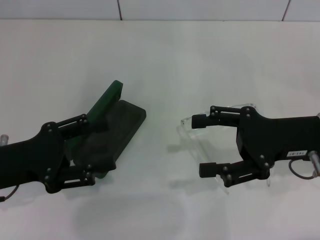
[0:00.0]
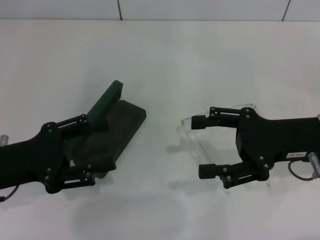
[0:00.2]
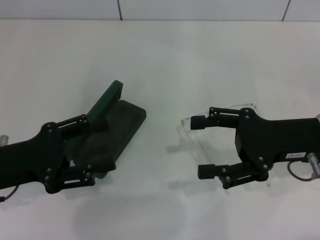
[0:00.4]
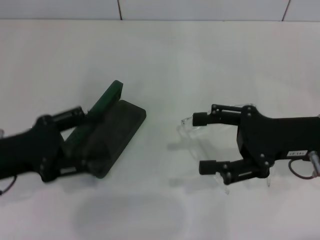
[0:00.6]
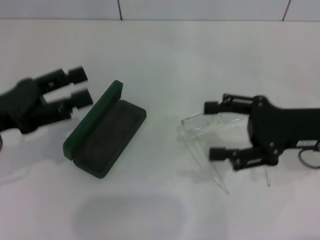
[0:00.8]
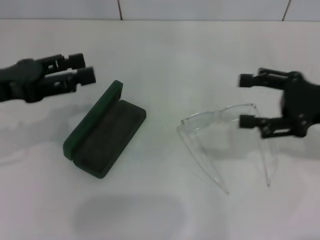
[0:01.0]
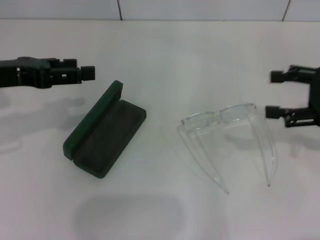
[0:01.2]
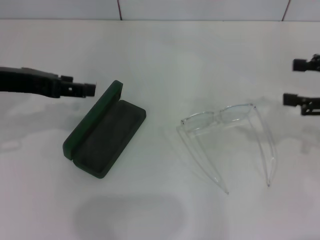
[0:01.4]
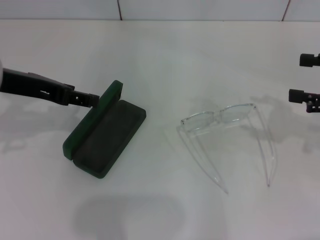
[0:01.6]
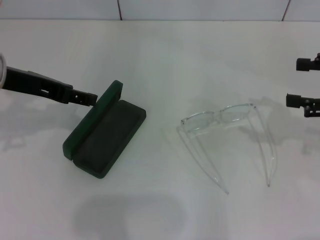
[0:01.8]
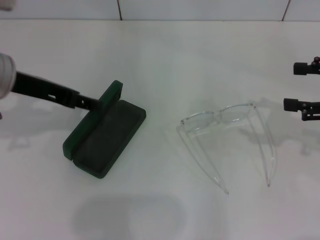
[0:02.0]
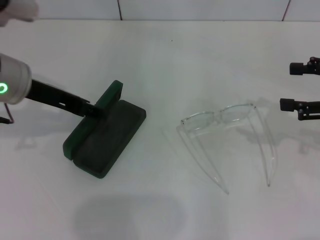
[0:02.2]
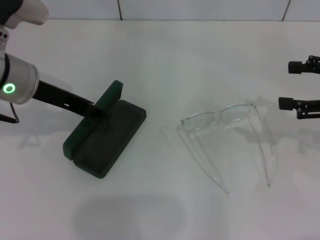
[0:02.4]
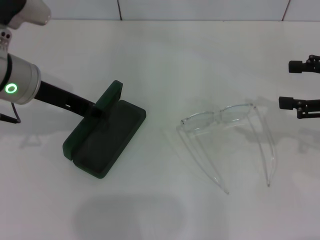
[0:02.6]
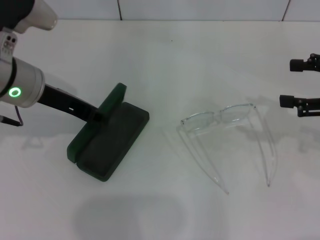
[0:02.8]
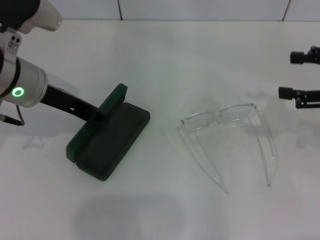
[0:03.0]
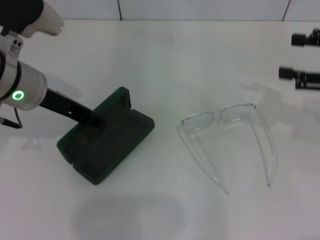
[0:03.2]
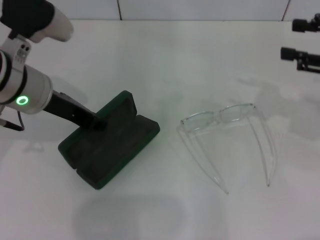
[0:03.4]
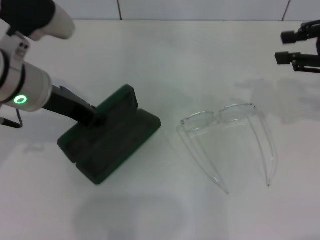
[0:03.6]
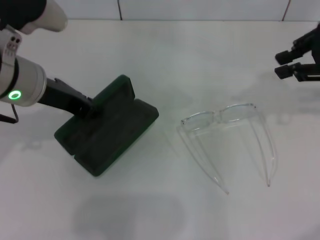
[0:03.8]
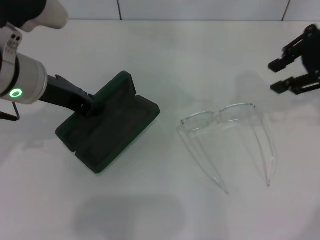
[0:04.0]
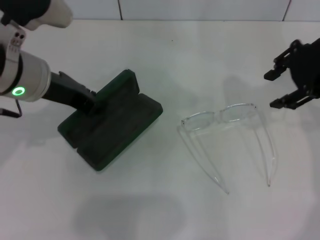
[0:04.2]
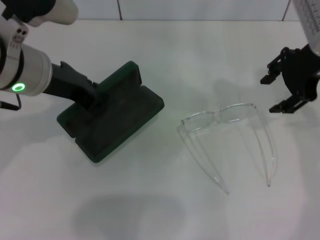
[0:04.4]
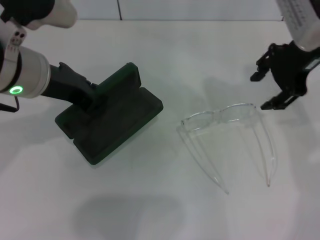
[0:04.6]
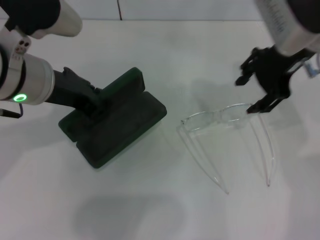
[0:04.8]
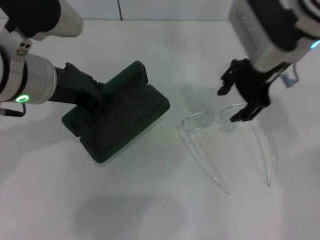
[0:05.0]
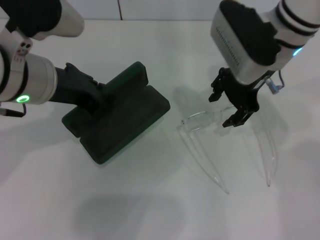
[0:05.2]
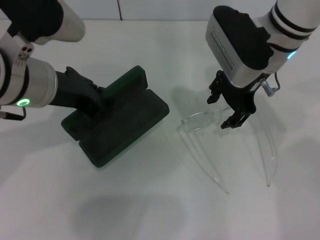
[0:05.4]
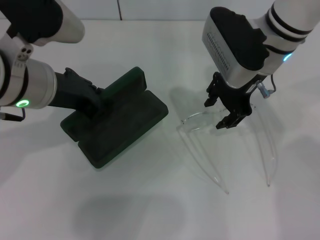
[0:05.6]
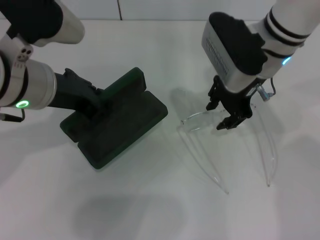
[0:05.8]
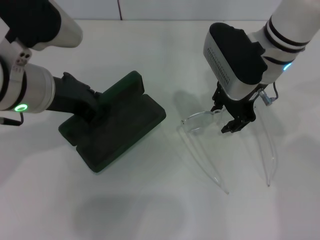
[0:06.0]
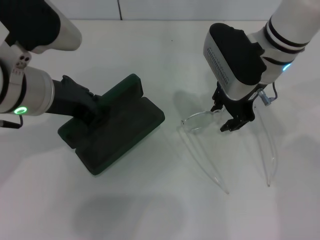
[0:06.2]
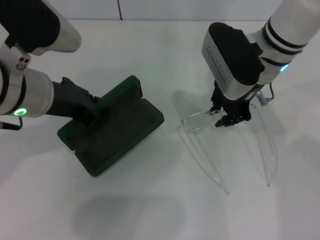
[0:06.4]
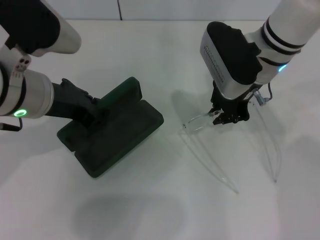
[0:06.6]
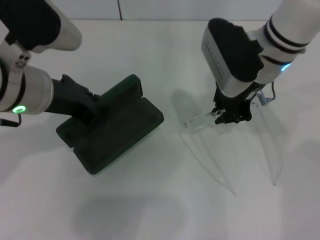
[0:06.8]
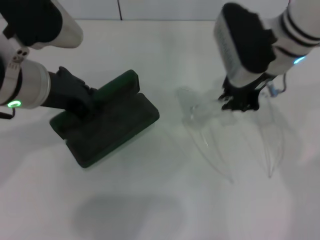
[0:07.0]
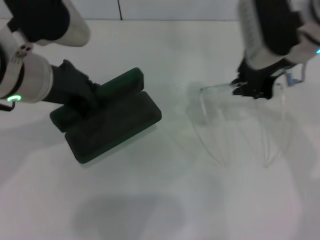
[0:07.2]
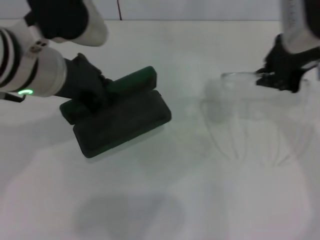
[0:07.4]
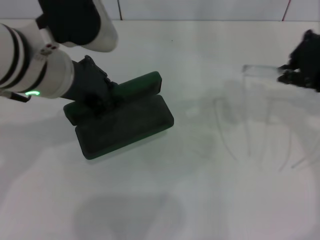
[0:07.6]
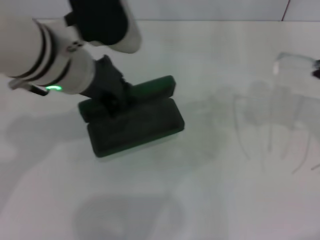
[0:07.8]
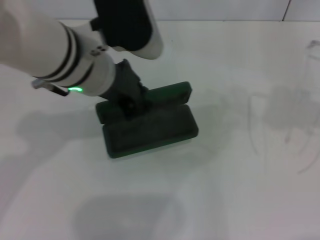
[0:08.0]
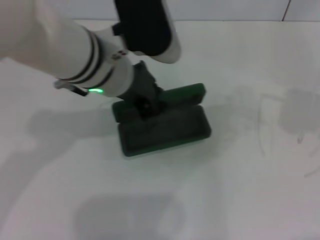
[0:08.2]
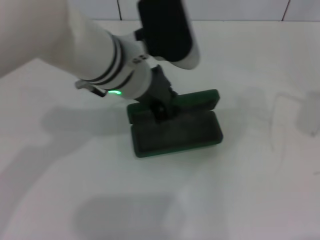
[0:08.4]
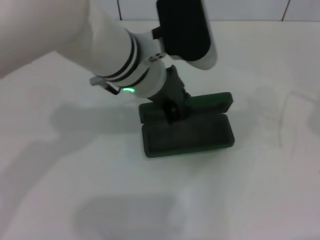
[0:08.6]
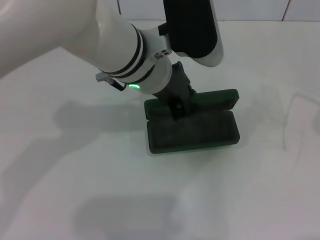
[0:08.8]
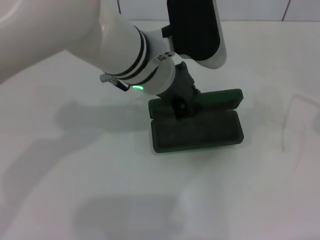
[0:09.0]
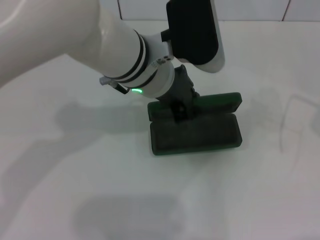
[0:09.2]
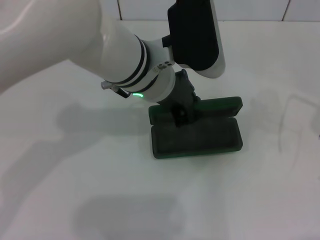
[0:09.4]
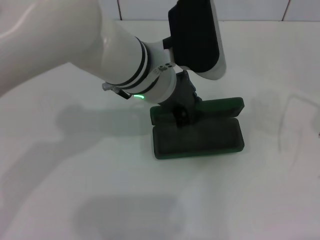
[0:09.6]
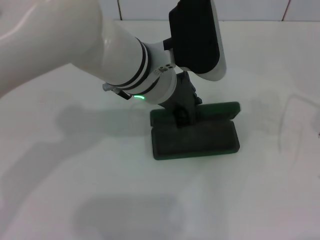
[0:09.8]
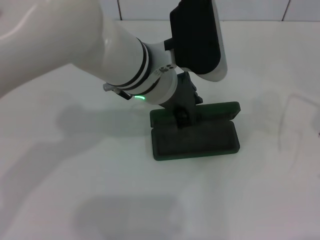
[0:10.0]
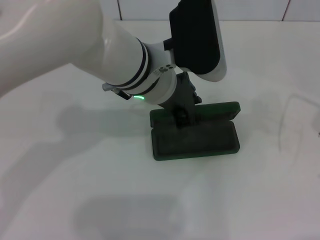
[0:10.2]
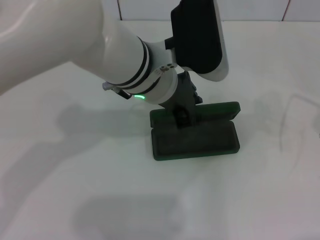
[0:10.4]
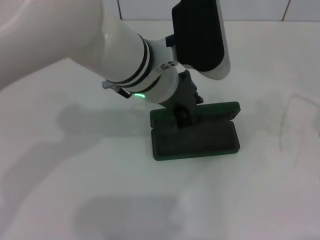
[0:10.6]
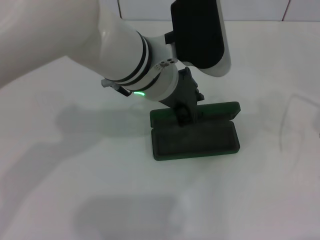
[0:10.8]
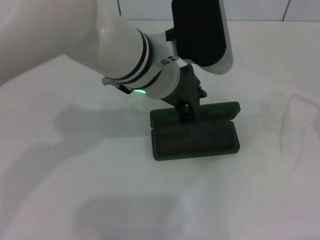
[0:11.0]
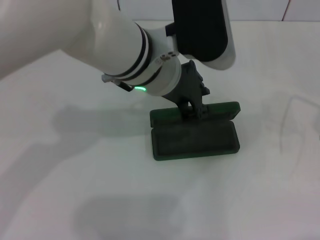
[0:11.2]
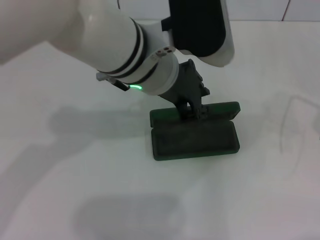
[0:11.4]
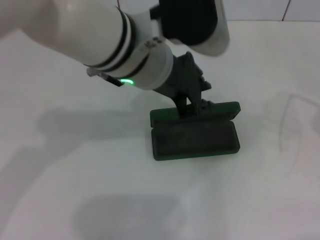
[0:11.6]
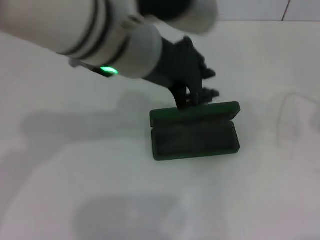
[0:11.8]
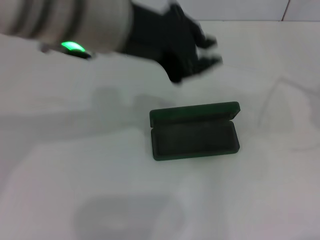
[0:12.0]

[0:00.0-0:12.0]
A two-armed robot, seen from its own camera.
Step, 0:00.0 to 0:03.2: Grab the glasses case with your left hand.
Step, 0:03.4 to 0:06.6: Grab the eyeglass frame with your right hand.
Step, 0:06.8 to 0:10.4: Place the glasses case in the center of the table with your left hand.
0:00.0 to 0:01.6: The left gripper goes roughly 15 cm upward and forward. Meanwhile the right gripper is displaced to the right by approximately 10 cm.
0:01.6 to 0:03.0: The left gripper ends up some 5 cm from where it was, and closes up.
0:03.0 to 0:04.4: The left gripper moves roughly 5 cm. The right gripper shifts about 15 cm to the left, forward and upward, and closes, then opens again.
0:04.4 to 0:06.0: The right gripper heads to the left and downward, covering roughly 10 cm.
0:06.0 to 0:07.6: The right gripper goes roughly 15 cm to the right, upward and backward, and closes up.
0:07.6 to 0:09.0: The left gripper is displaced to the right by approximately 10 cm; the right gripper moves to the right and backward, approximately 20 cm.
0:09.0 to 0:10.4: Both grippers stay about where they are.
0:10.4 to 0:12.0: The left gripper goes approximately 15 cm upward and to the left.

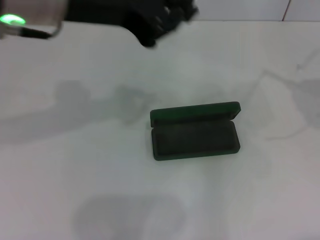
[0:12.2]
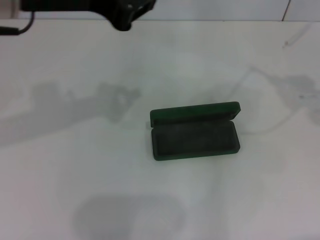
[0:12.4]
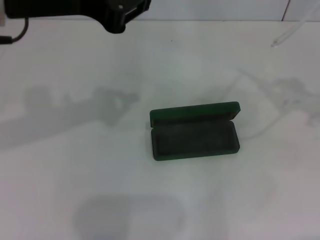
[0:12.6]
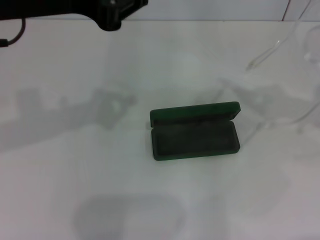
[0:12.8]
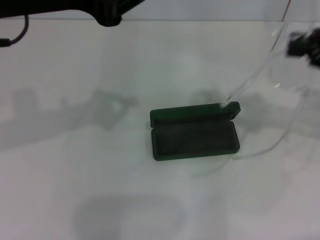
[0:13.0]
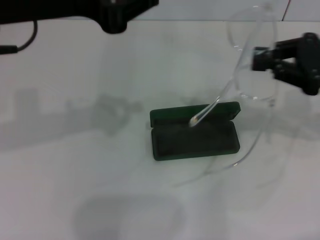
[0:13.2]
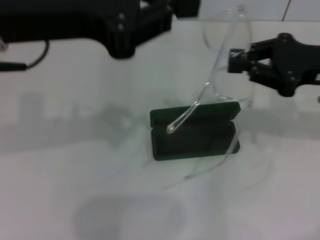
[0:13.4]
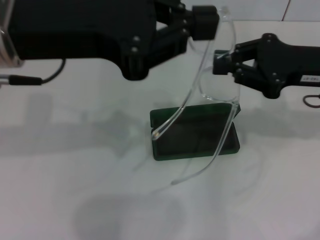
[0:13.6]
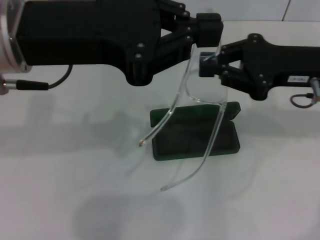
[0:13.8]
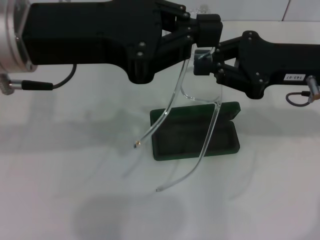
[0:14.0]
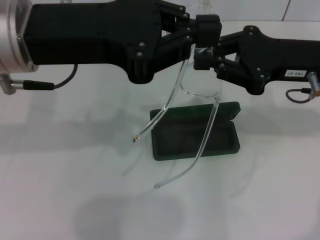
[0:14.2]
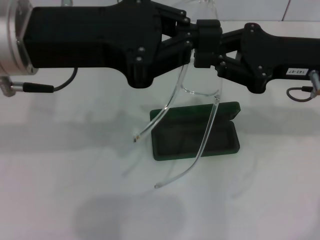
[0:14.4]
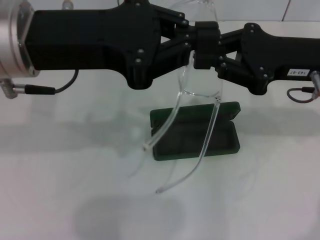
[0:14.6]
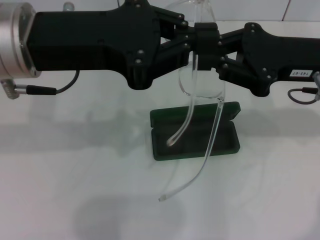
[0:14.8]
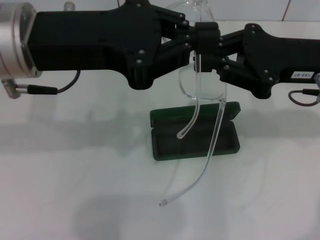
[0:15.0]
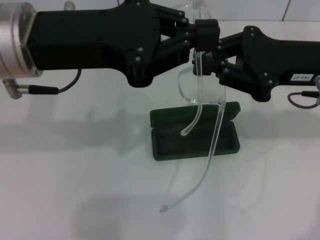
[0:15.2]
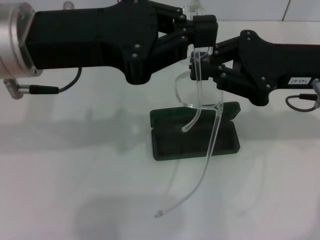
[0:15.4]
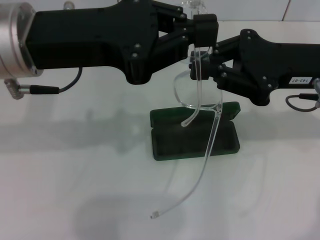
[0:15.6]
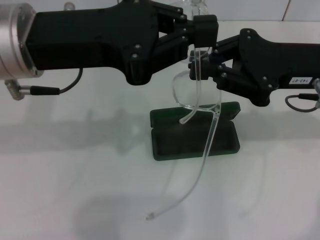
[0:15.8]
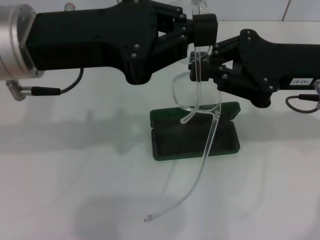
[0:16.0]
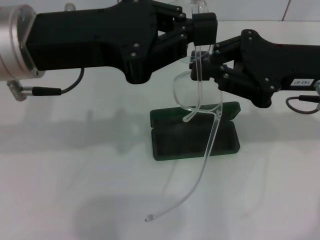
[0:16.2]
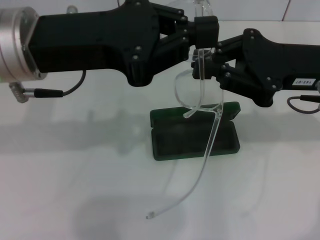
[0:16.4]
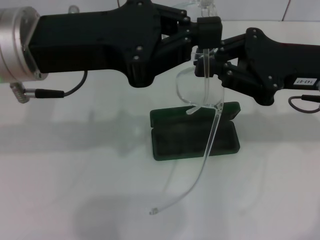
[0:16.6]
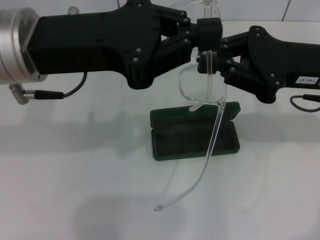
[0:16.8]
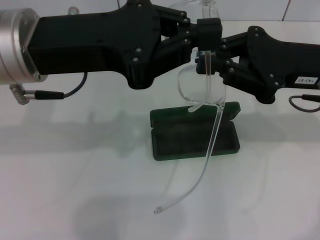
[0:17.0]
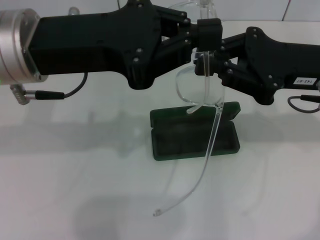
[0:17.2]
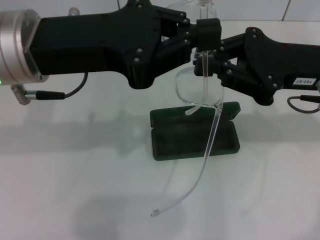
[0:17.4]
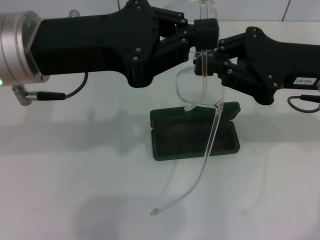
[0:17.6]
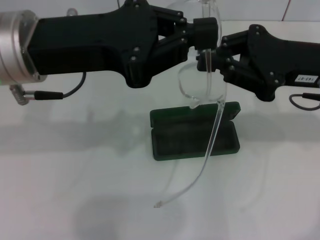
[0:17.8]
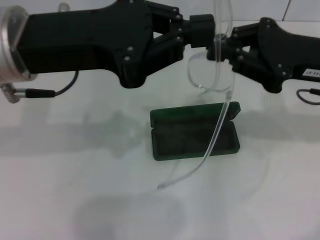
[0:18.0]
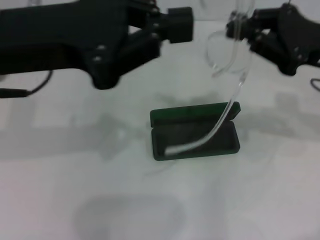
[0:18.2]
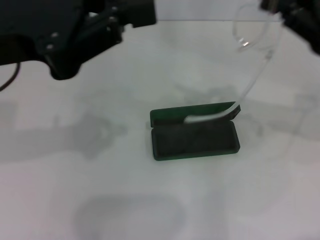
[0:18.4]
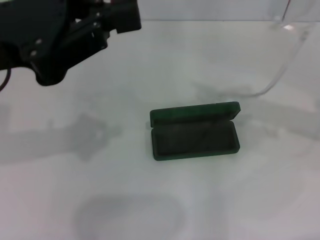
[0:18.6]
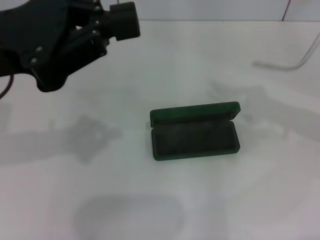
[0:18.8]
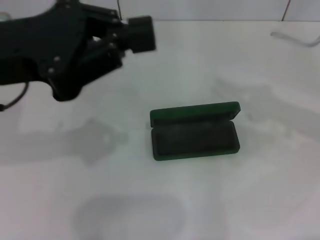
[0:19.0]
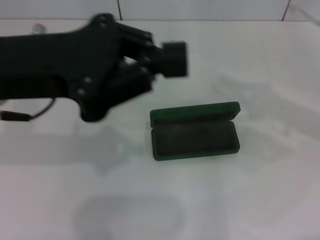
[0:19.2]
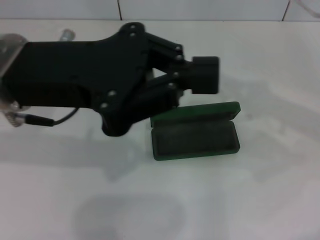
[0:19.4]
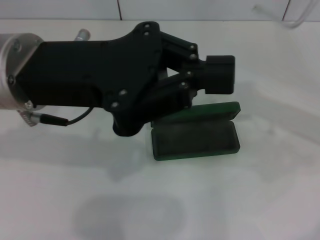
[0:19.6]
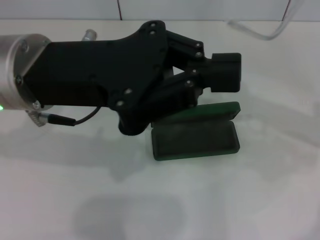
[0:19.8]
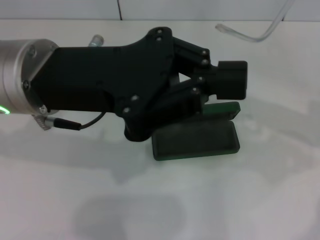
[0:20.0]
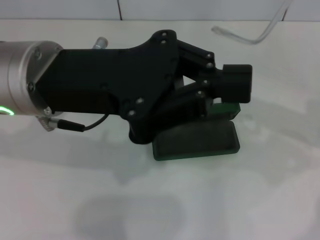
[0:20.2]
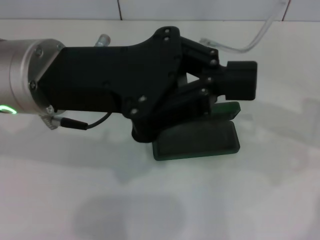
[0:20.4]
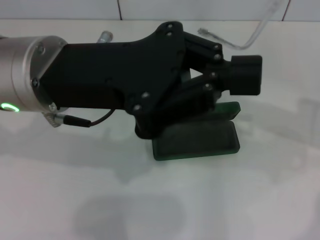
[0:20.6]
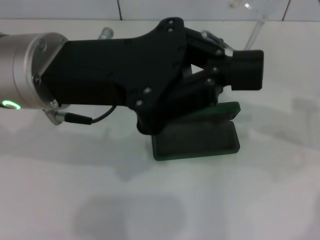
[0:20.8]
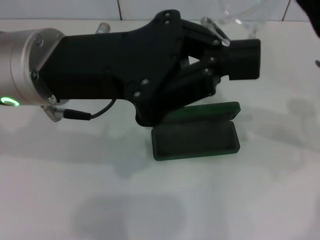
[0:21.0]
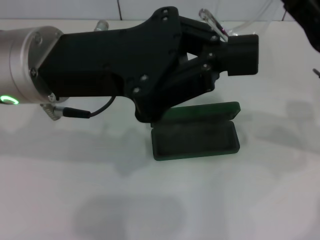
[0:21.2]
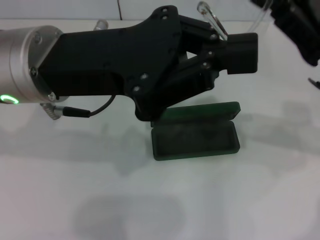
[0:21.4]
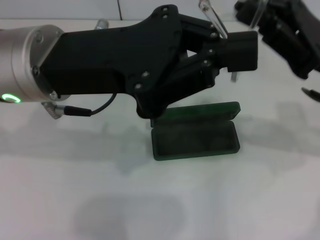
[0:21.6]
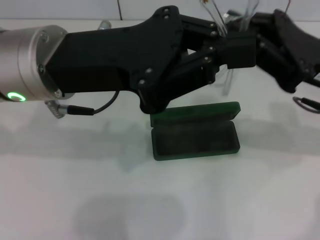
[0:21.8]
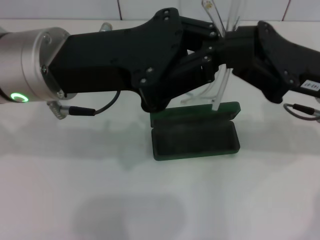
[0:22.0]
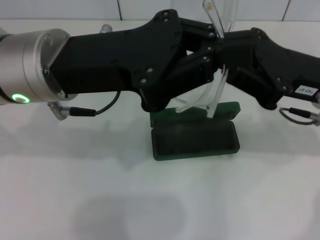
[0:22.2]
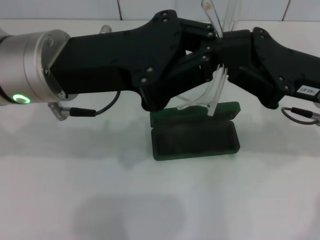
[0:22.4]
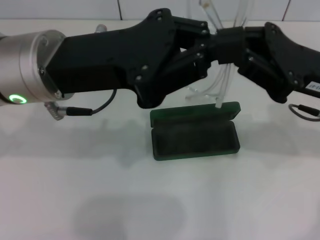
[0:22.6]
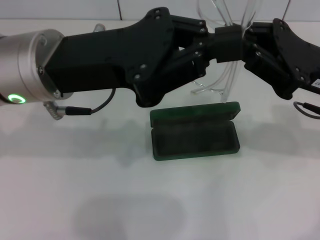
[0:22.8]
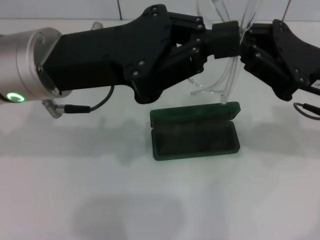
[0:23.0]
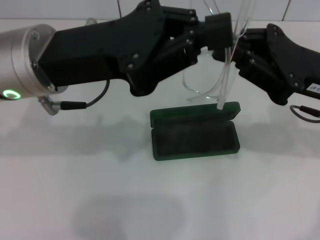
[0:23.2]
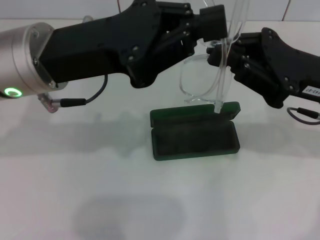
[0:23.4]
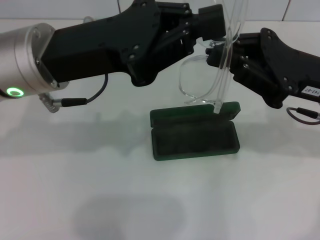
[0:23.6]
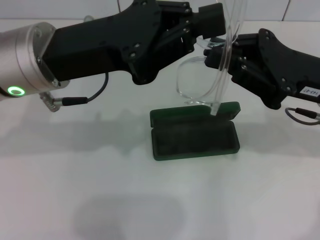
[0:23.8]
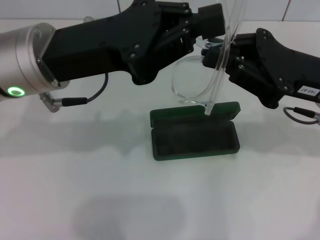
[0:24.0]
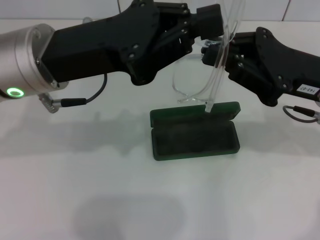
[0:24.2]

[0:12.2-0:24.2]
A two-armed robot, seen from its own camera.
Step, 0:12.2 to 0:22.0: Fold the frame with your left hand.
0:12.2 to 0:13.8: The right gripper is displaced to the left, downward and forward by some 20 cm.
0:13.8 to 0:15.2: The grippers move only a little.
0:15.2 to 0:16.6: The two grippers keep their place.
0:19.8 to 0:21.2: The grippers move only a little.
0:21.2 to 0:24.2: There are only small adjustments of the grippers.
